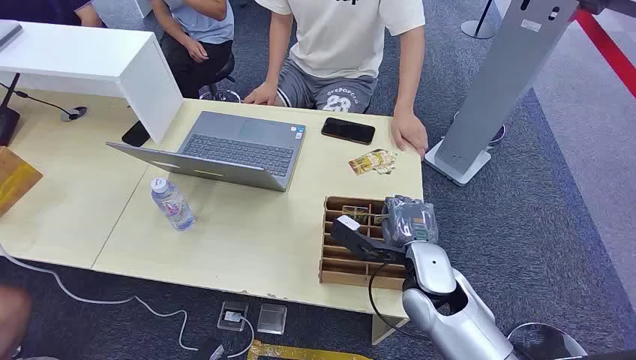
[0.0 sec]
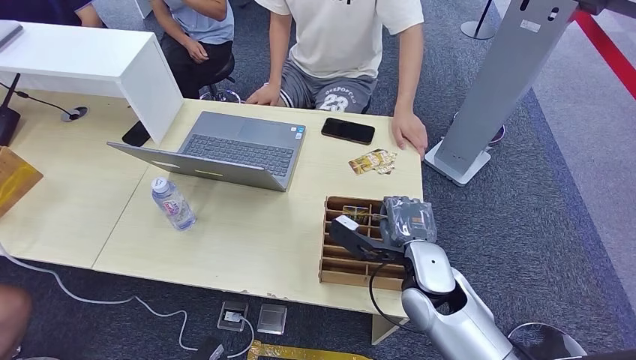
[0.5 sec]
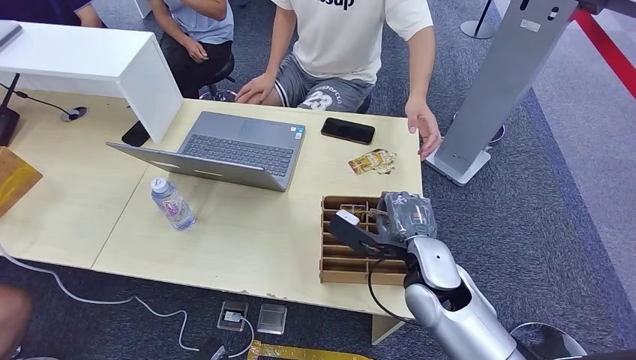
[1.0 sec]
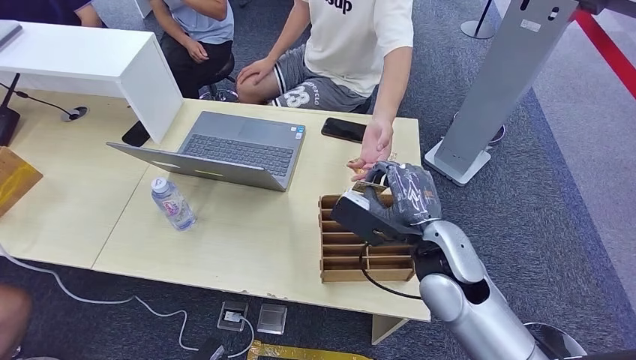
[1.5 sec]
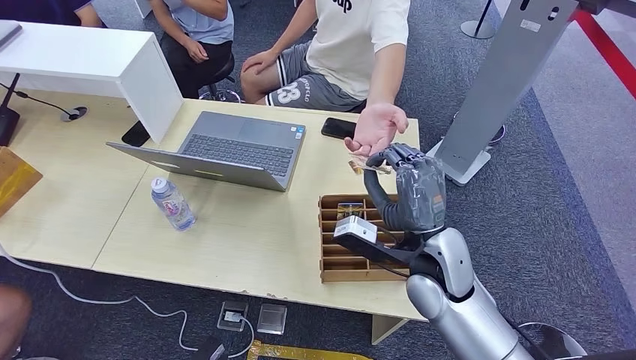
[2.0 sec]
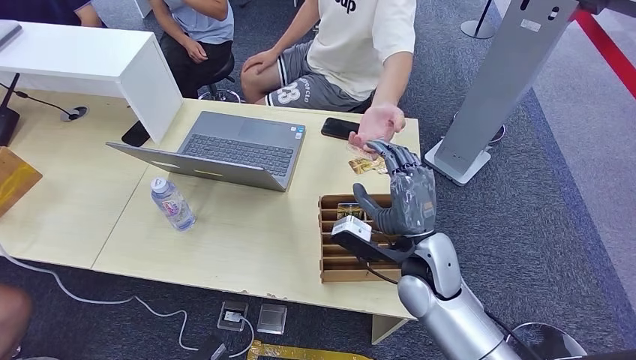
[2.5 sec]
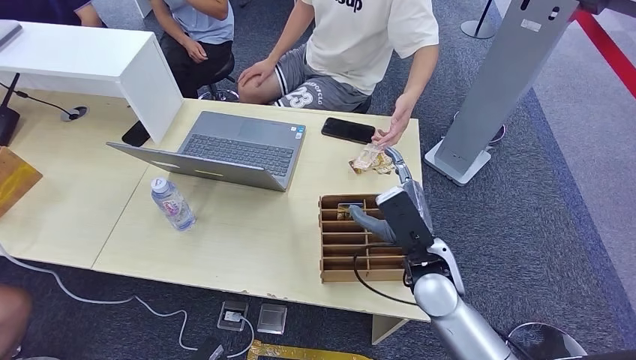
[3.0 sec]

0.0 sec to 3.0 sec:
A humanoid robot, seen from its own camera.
Step, 0.0 sec to 1.5 sec: Pick up the key card from the card box.
Step, 2.0 sec to 3.0 sec: Hand the key card to the target.
1.5 sec to 3.0 sec: The right hand moves downward, roughly 5 cm.
